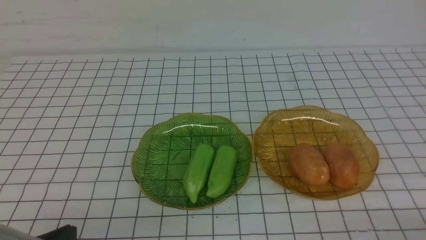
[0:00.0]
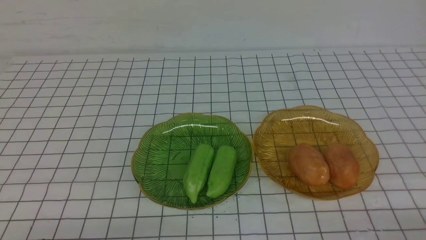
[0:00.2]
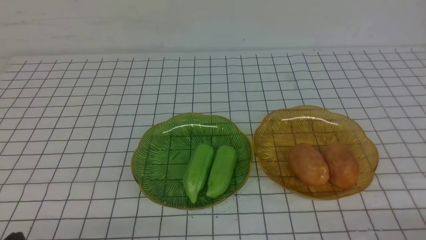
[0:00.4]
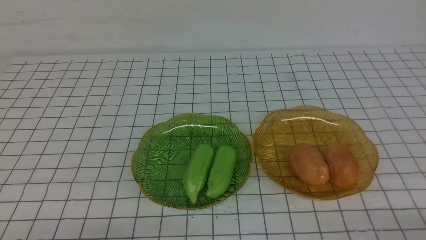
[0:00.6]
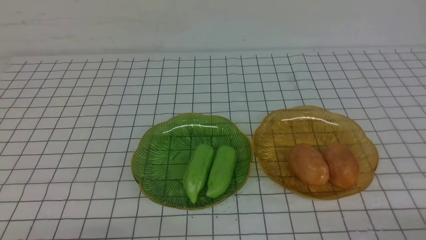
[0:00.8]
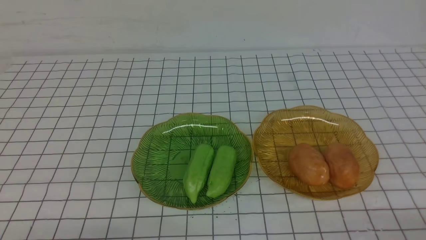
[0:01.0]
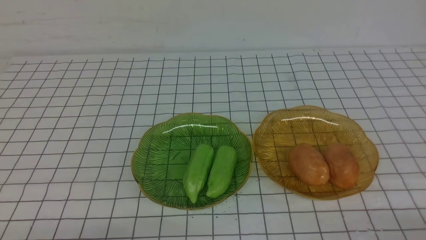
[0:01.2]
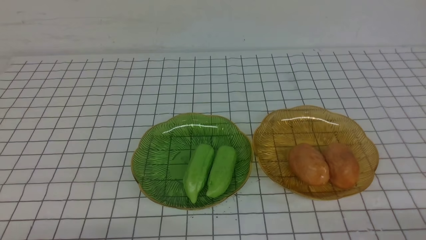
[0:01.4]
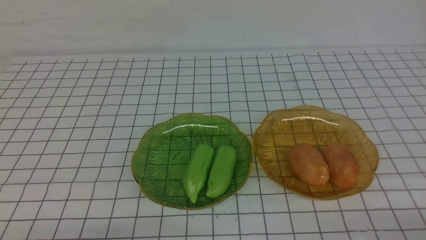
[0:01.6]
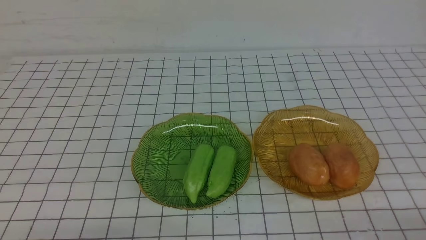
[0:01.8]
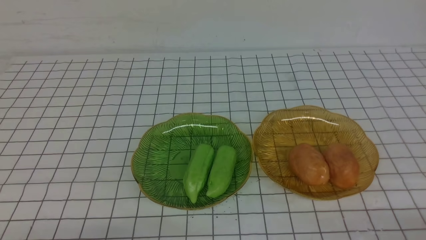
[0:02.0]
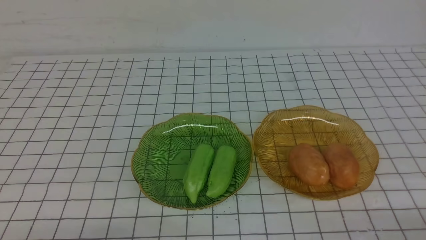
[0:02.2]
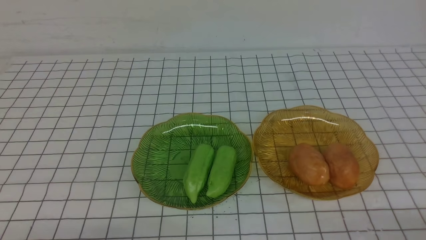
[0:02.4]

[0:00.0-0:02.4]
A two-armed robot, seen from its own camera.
0:01.2 to 0:02.4: Both grippers stay about where they are.

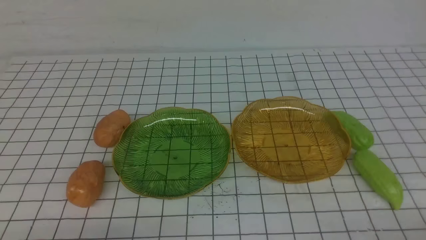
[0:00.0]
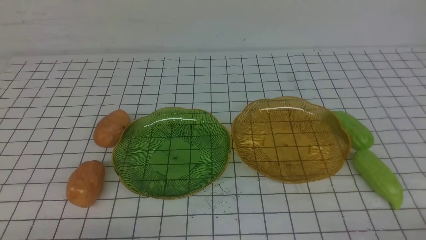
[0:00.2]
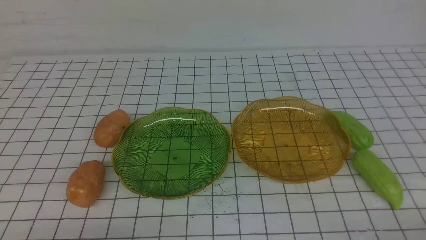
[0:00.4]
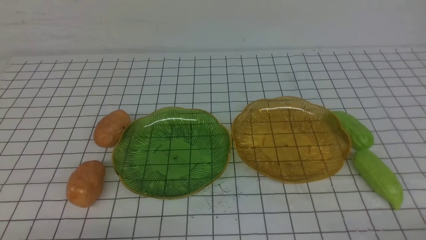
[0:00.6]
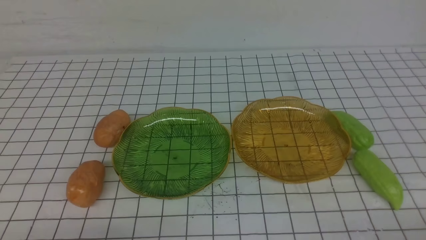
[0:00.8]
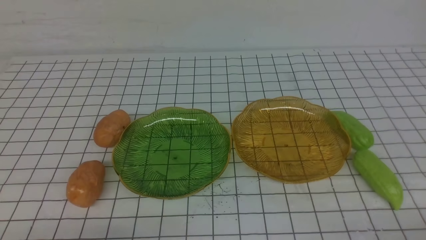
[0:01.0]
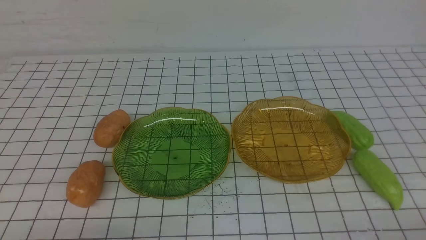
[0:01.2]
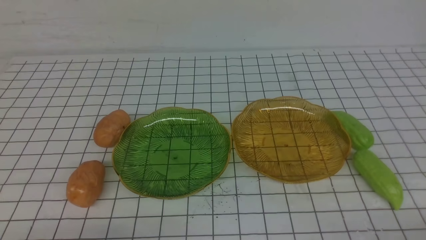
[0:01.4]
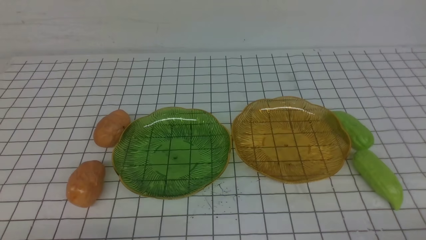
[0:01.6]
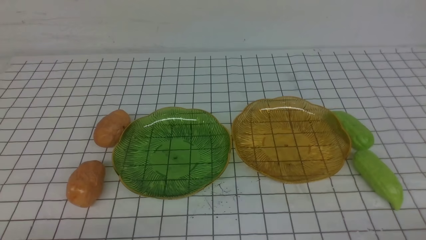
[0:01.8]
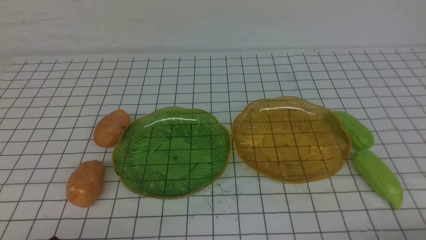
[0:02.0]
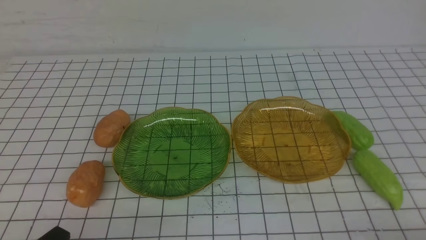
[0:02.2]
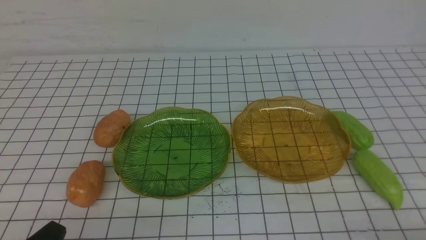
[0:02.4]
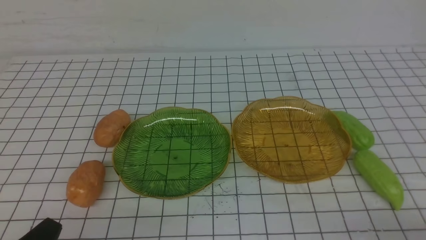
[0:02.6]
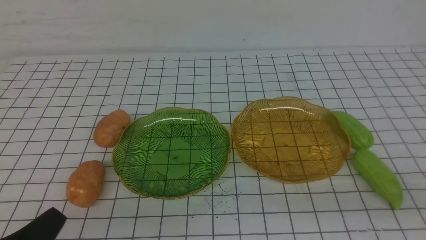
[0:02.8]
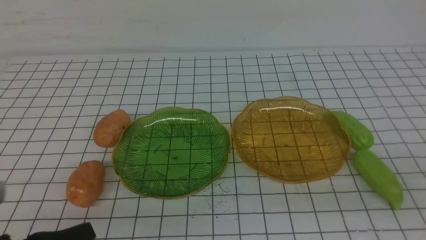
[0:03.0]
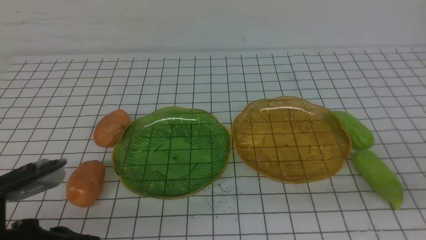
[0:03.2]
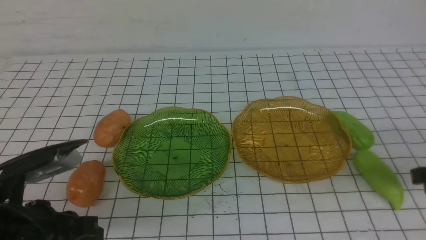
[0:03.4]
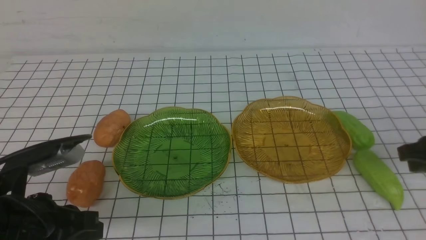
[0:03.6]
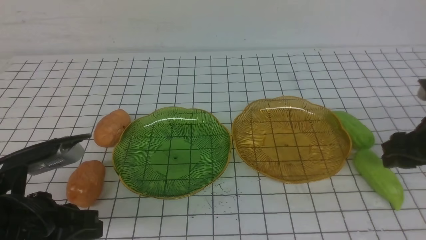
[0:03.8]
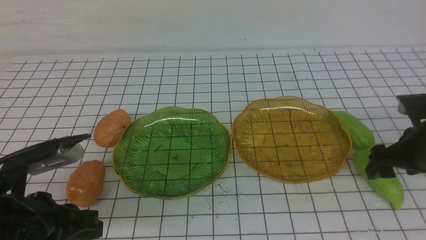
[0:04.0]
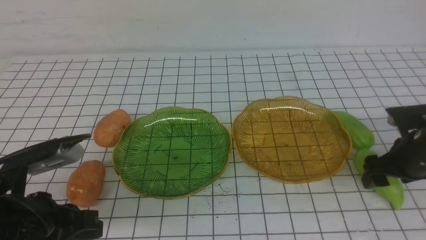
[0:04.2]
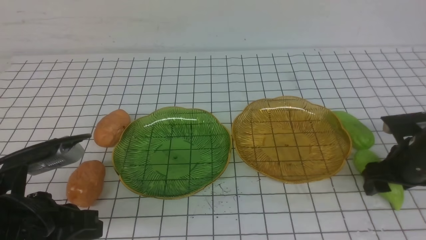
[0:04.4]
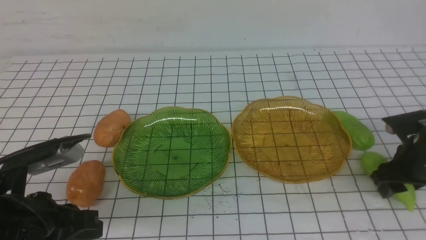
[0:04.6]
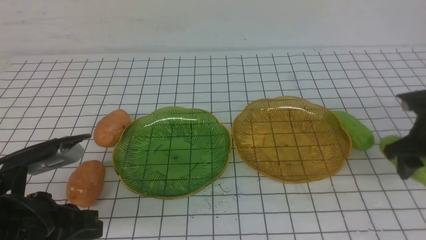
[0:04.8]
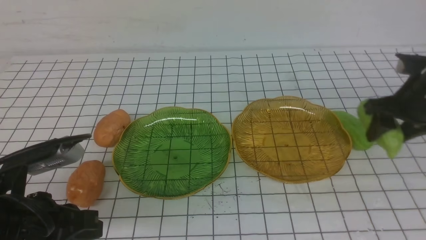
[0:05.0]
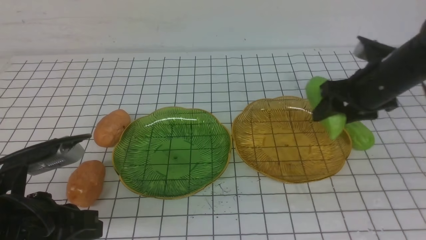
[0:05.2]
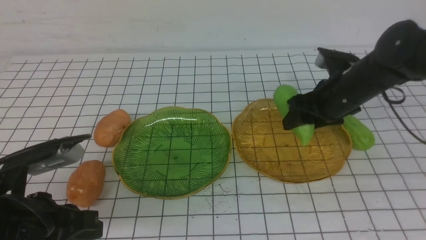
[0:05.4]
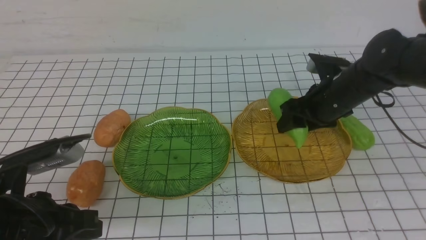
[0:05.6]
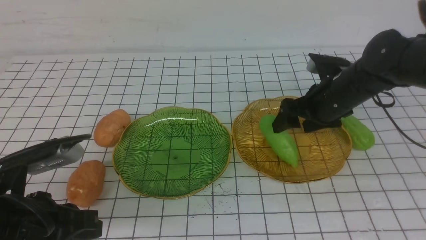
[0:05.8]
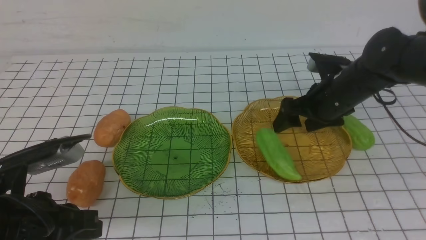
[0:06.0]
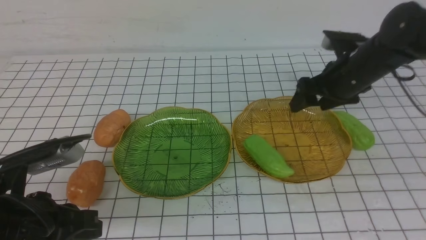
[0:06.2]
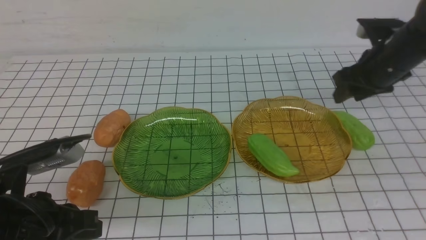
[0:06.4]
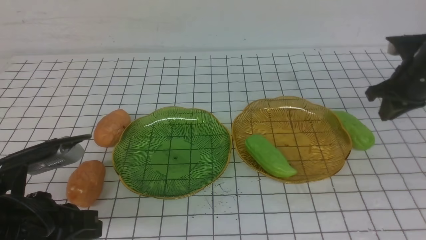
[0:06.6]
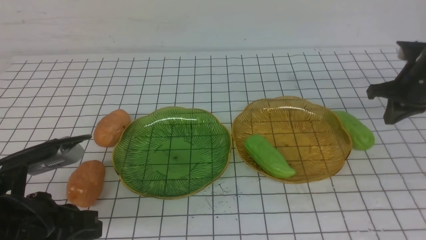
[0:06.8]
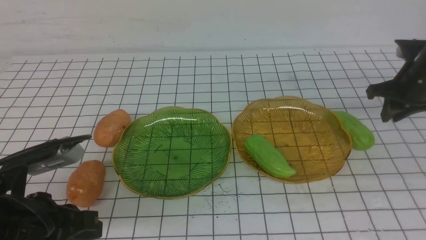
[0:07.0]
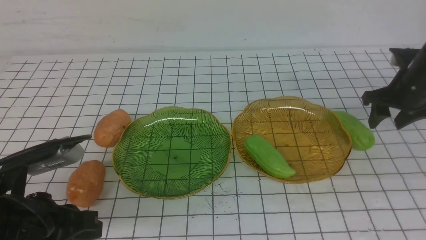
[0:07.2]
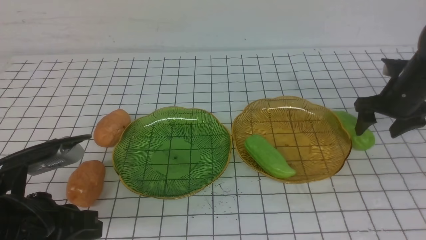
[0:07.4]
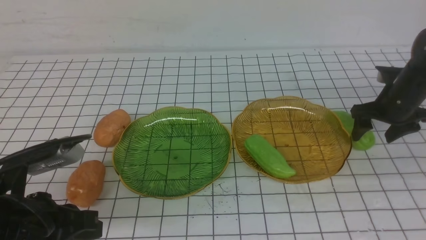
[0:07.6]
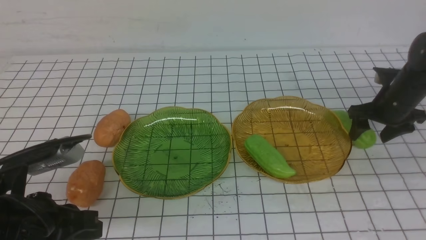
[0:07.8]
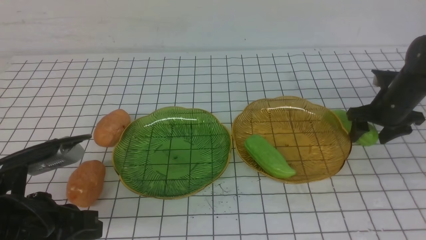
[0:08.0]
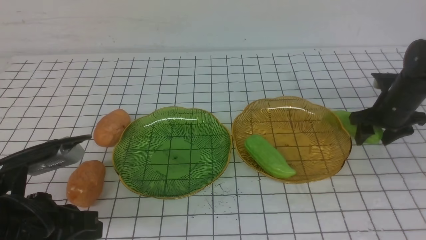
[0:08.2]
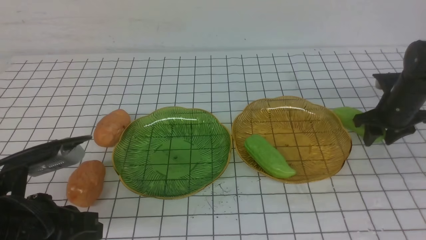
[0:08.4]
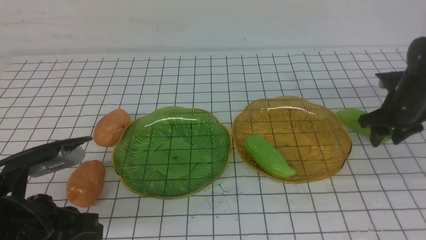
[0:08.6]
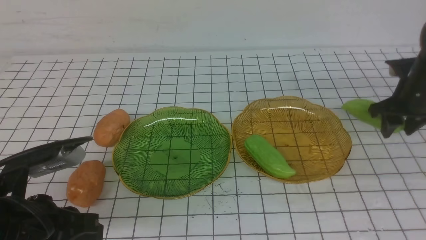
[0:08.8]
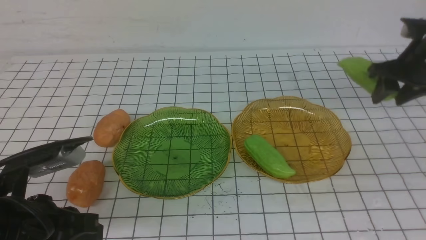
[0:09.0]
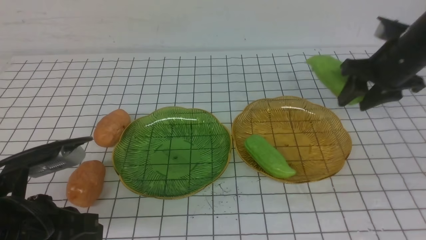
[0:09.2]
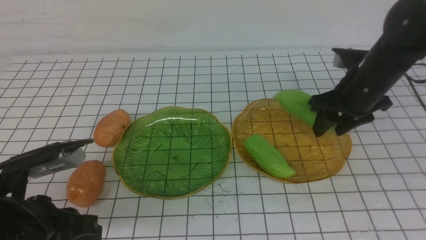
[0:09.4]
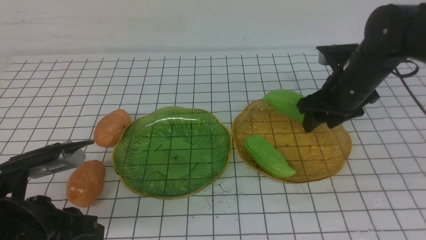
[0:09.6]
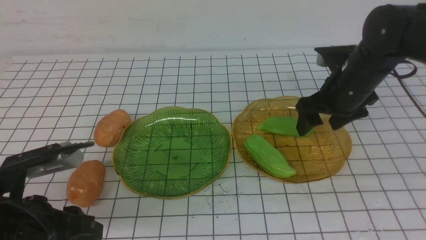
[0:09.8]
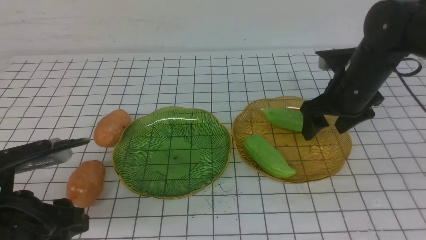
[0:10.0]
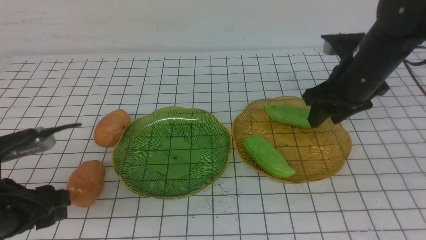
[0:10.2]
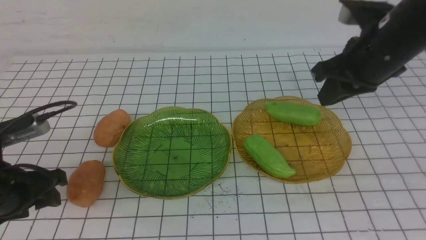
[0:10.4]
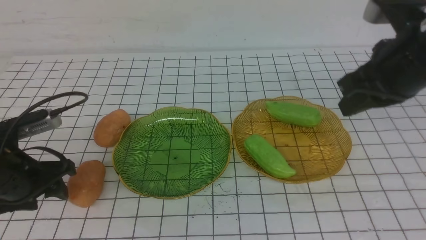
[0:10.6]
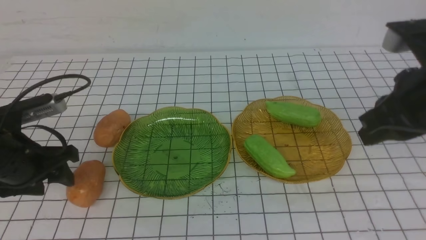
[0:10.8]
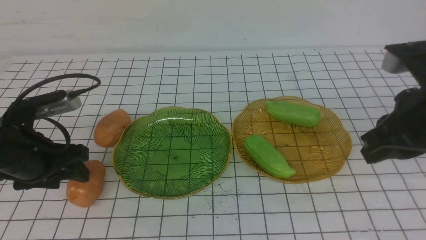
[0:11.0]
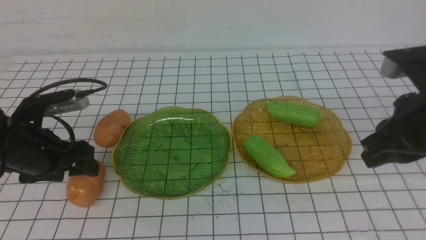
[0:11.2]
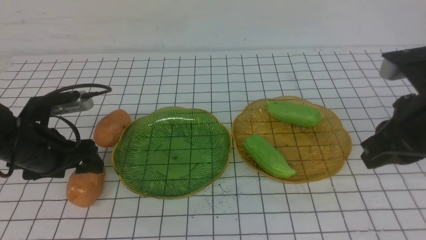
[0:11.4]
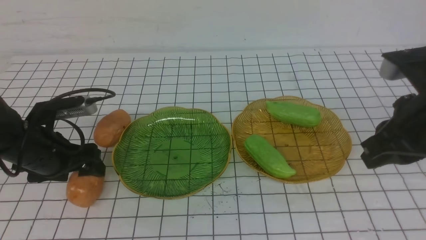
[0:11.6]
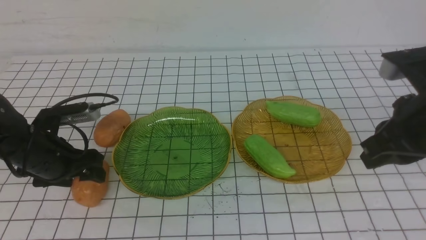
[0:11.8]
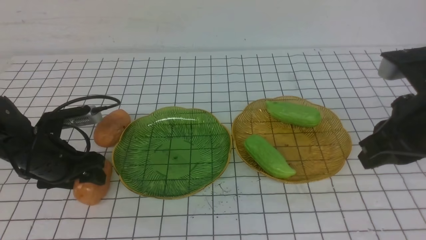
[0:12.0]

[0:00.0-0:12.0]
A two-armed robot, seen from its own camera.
Step, 0:00.0 to 0:05.8: use the right arm to grab a chayote and put it into the right plate.
Step, 0:06.2 to 0:10.2: use the right arm to grab a chayote and put it into the right plate.
0:00.0 to 0:01.6: Both grippers stay about where they are.
0:01.6 to 0:03.0: The left gripper heads upward, covering roughly 5 cm.
0:03.0 to 0:04.4: The right gripper heads forward and downward, covering roughly 25 cm, and opens its fingers. The left gripper moves forward, about 5 cm.
0:04.4 to 0:06.0: The right gripper is displaced to the left, forward and upward by some 15 cm.
0:06.0 to 0:07.6: The right gripper heads to the right and downward, covering some 15 cm, and closes, then reopens.
0:07.6 to 0:09.0: The right gripper goes some 10 cm upward, and closes up.
0:09.0 to 0:10.4: The right gripper moves to the left, backward and upward, some 15 cm, and closes; the left gripper moves forward and to the left, approximately 10 cm, and opens up.
0:10.4 to 0:12.0: The right gripper is displaced backward by approximately 10 cm. The left gripper shifts about 10 cm forward and downward.

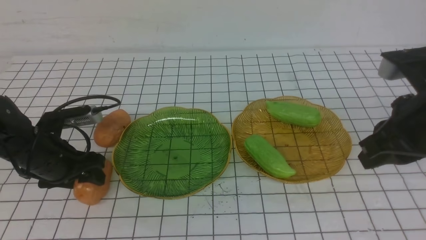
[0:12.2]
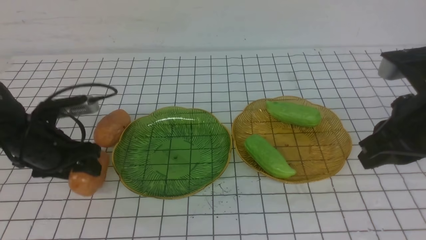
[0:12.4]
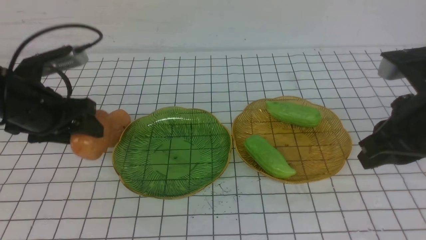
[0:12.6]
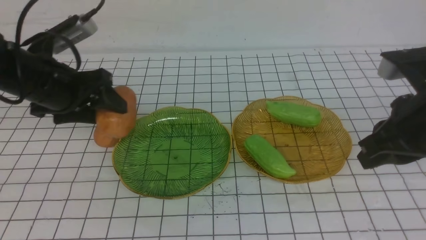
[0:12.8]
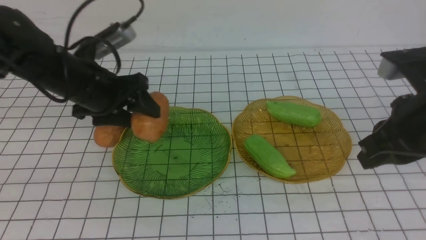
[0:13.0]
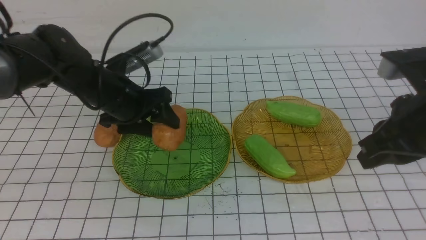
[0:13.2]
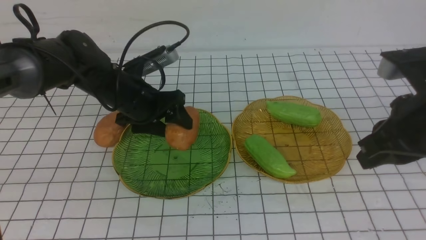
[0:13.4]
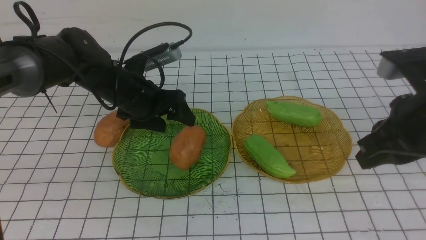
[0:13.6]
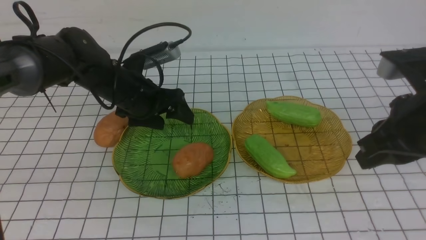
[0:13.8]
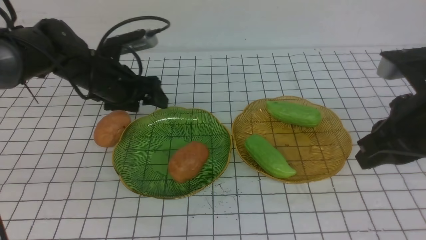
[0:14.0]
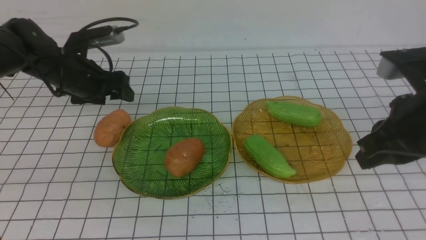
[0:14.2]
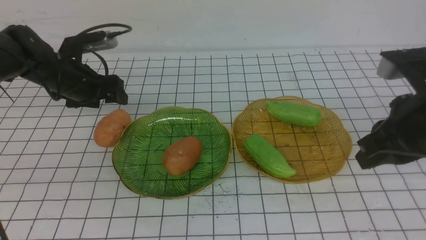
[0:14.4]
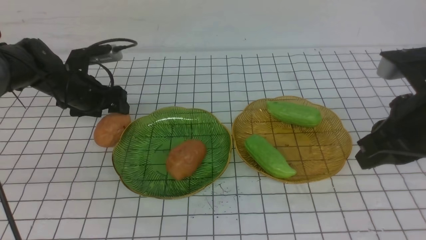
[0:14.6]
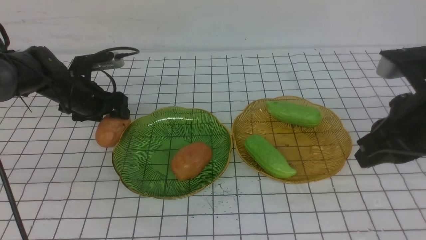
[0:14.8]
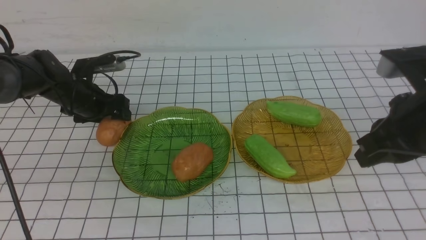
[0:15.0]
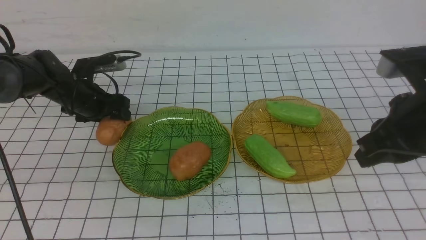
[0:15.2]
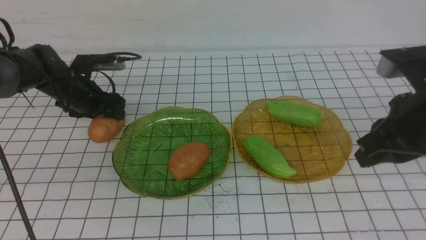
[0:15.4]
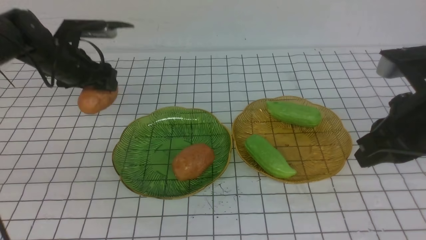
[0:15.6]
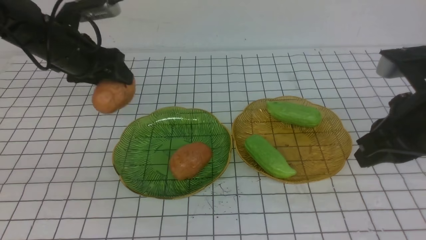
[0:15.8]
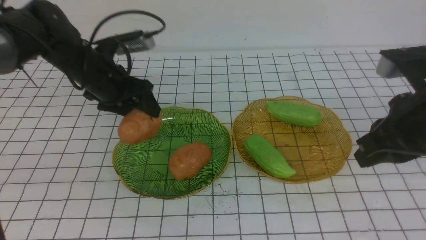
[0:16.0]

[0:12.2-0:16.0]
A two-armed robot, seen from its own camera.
0:12.2 to 0:13.4: The left gripper shifts some 15 cm to the right and forward.
0:13.4 to 0:14.8: The left gripper goes some 10 cm to the left and forward.
0:14.8 to 0:16.0: The left gripper goes about 10 cm upward and to the right.
